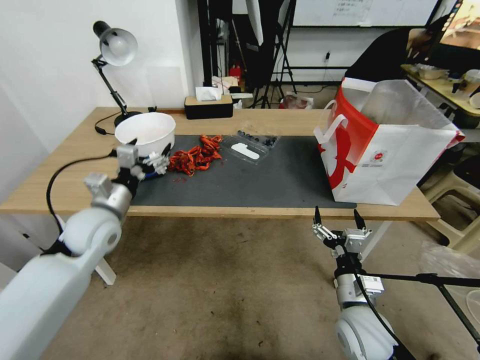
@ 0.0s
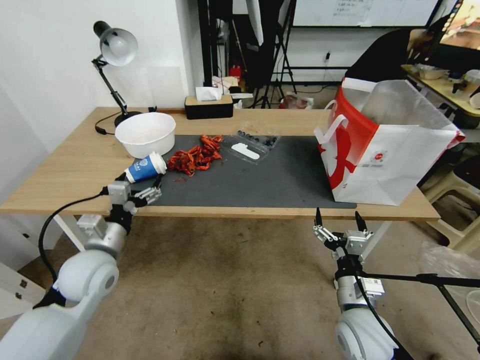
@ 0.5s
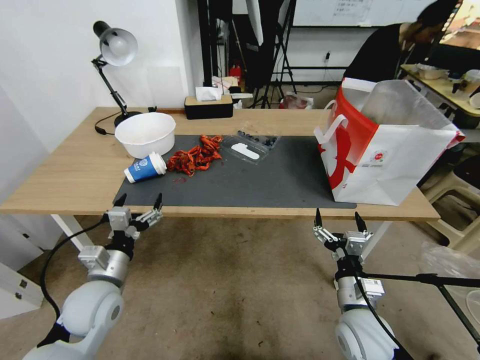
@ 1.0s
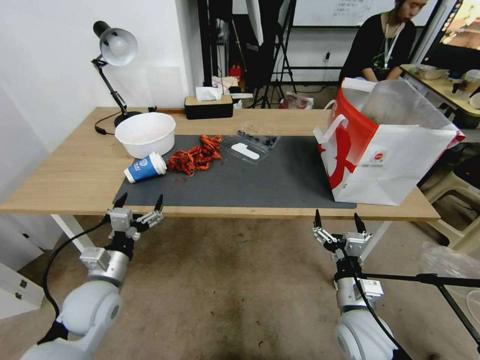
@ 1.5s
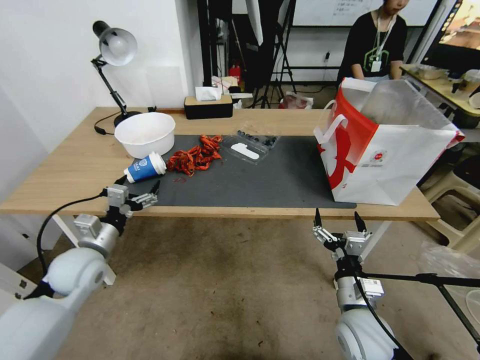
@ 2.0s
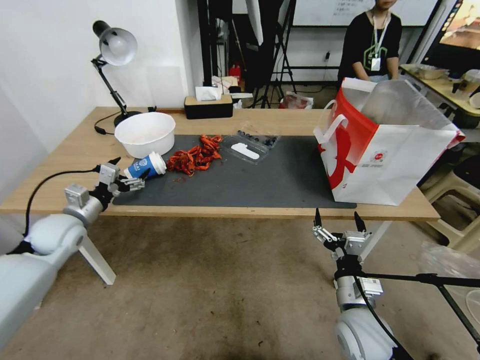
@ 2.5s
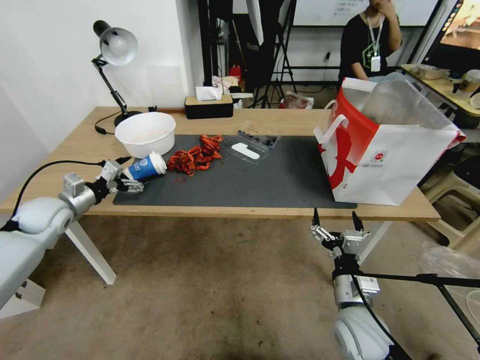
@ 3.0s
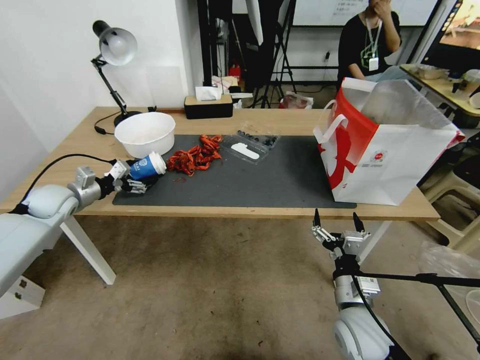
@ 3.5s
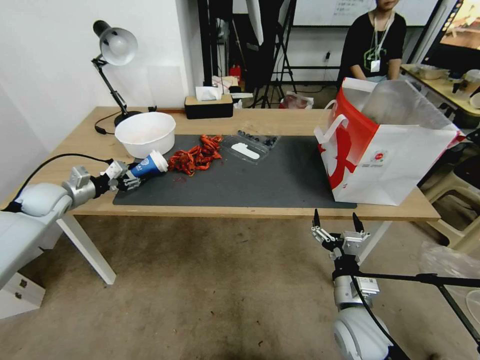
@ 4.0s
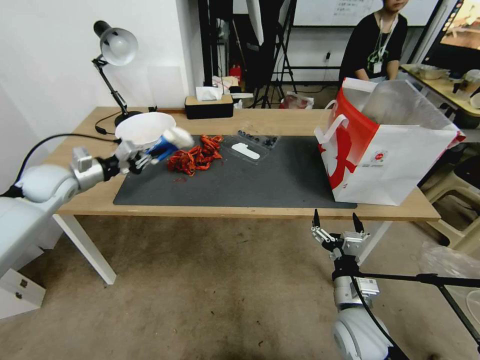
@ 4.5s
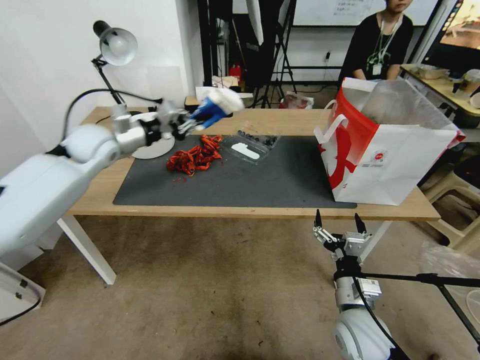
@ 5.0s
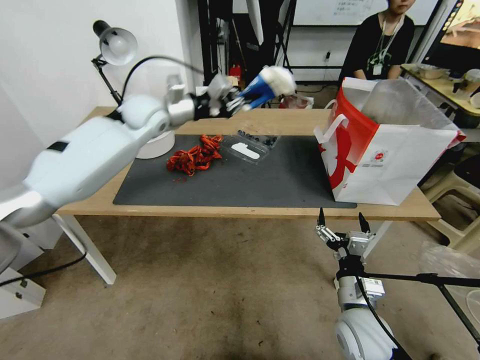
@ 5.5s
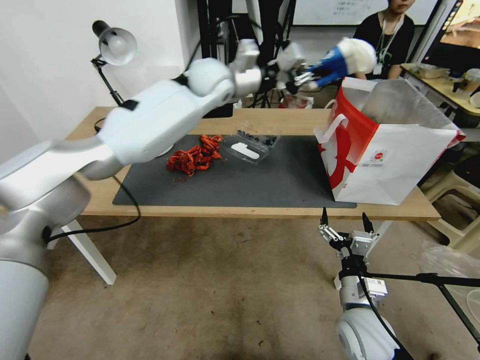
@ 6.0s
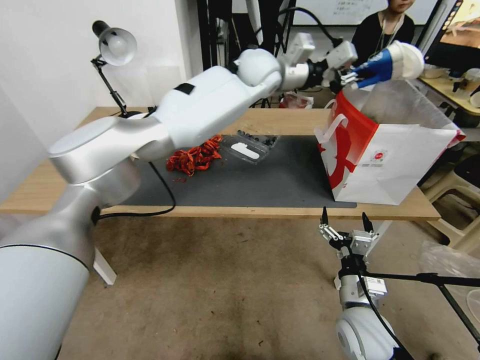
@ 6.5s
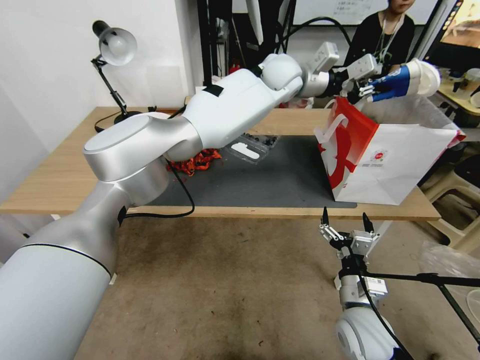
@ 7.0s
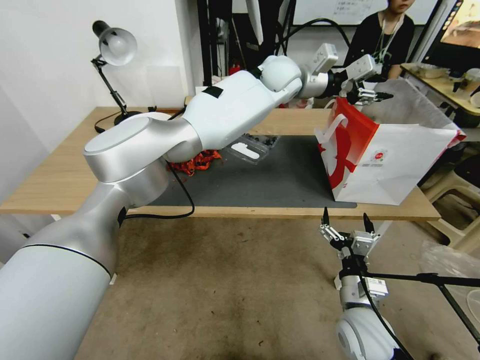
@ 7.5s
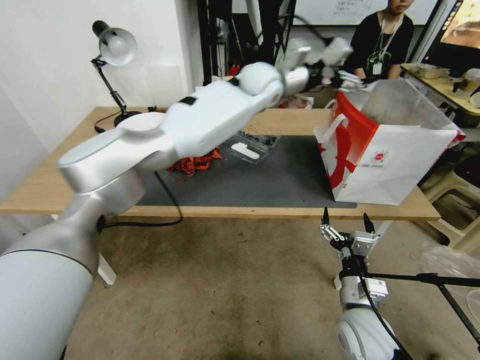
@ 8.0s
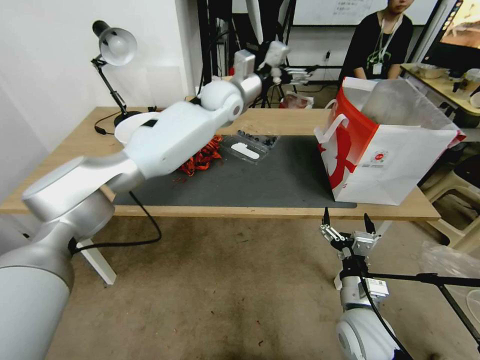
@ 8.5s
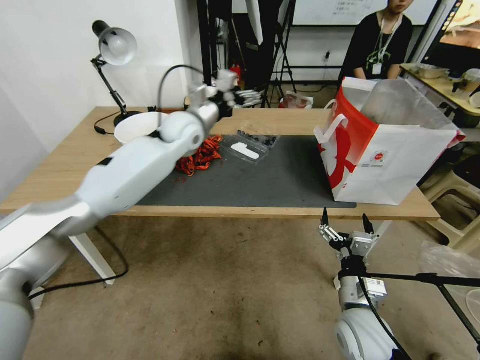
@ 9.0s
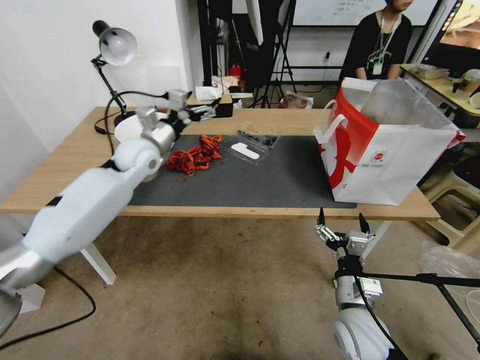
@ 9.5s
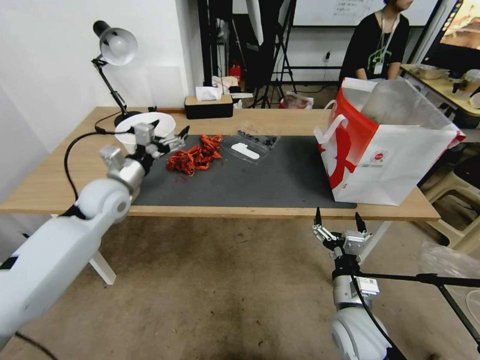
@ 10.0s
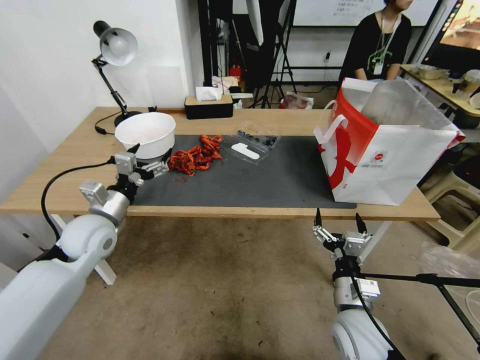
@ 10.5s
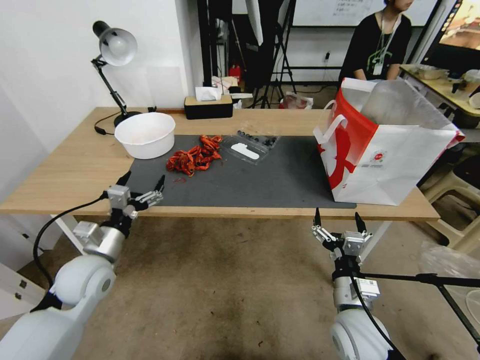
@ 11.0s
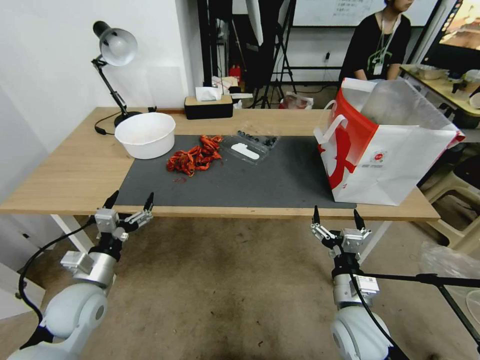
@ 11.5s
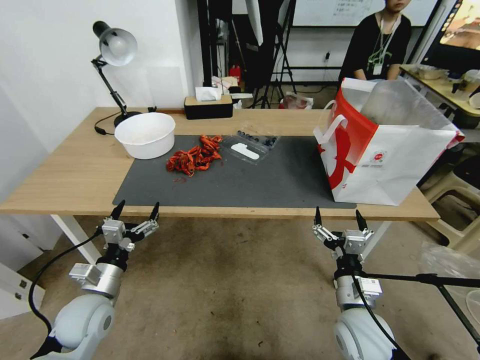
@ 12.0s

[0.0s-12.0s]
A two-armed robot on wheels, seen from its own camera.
0.0s to 2.0s: The left gripper shifts roughly 15 cm backward and downward.
2.0s to 4.0s: The left gripper is displaced forward and to the left by some 20 cm, and closes its fingers.
4.0s to 6.0s: The left gripper shifts roughly 50 cm to the right and upward, and closes up.
6.0s to 8.0s: The left gripper goes roughly 10 cm to the right, and opens up.
8.0s to 10.0s: The left gripper is displaced to the left, backward and downward by about 40 cm.
10.0s to 12.0s: The left gripper goes about 25 cm backward and downward.

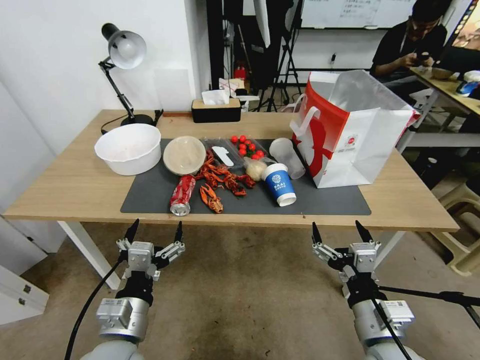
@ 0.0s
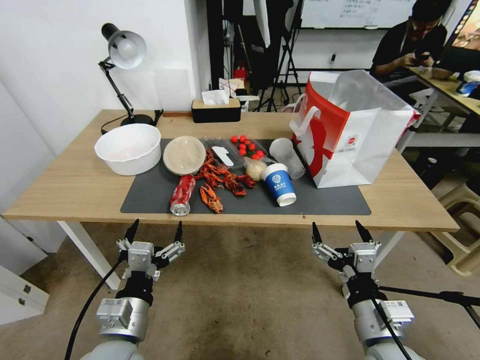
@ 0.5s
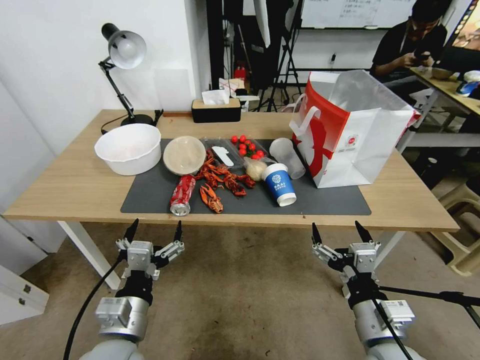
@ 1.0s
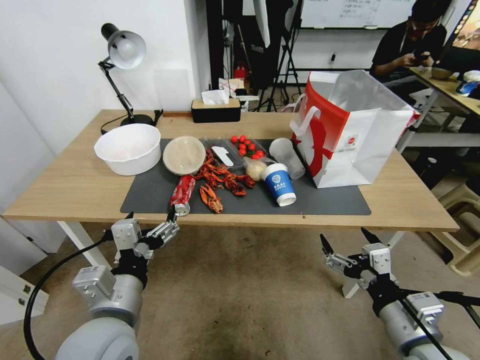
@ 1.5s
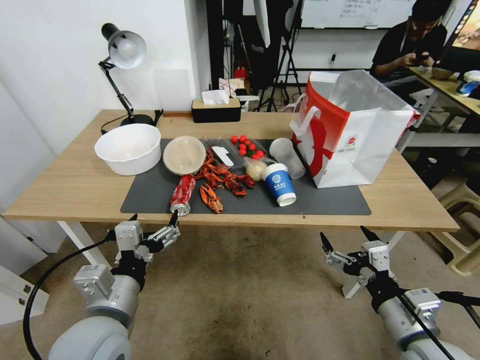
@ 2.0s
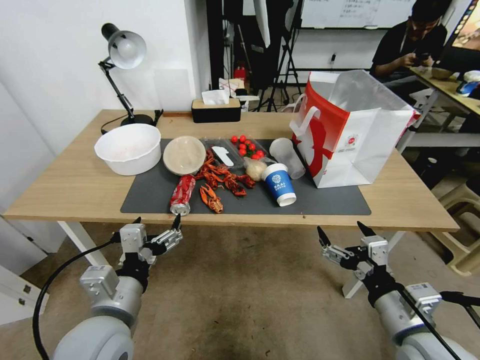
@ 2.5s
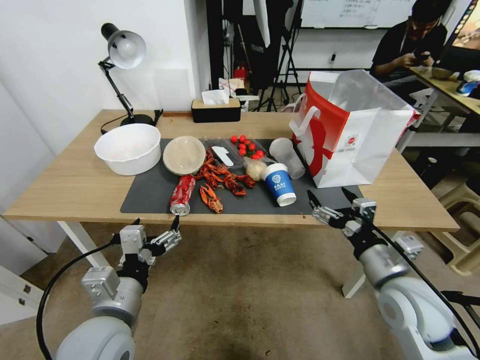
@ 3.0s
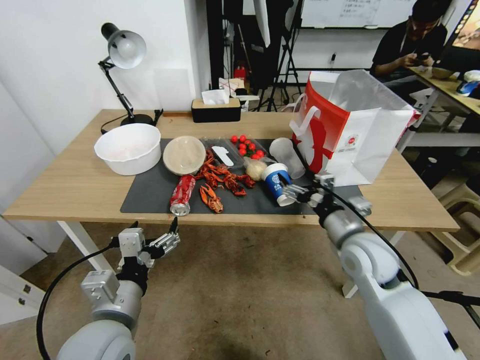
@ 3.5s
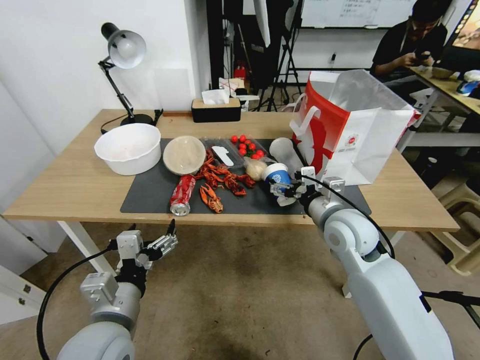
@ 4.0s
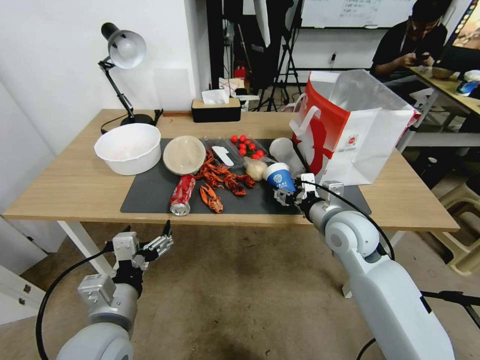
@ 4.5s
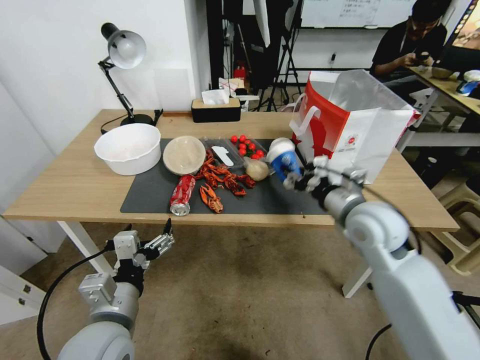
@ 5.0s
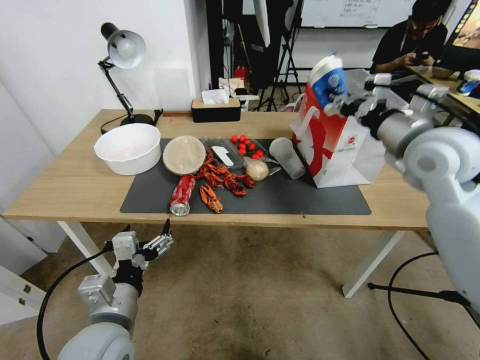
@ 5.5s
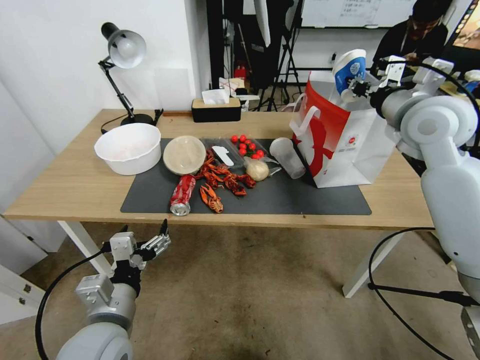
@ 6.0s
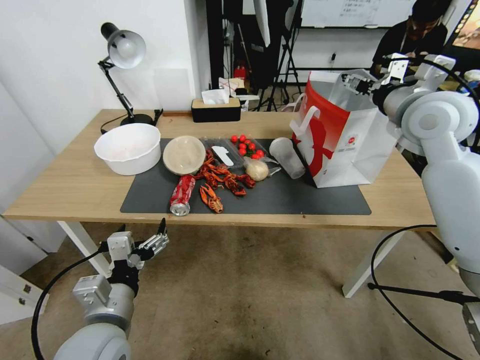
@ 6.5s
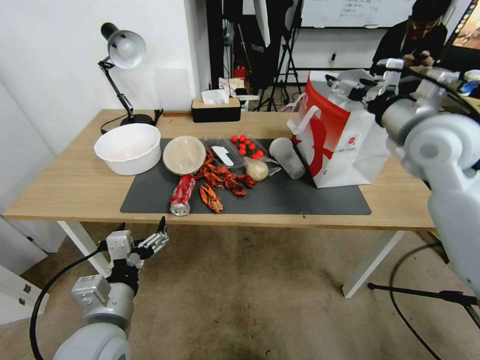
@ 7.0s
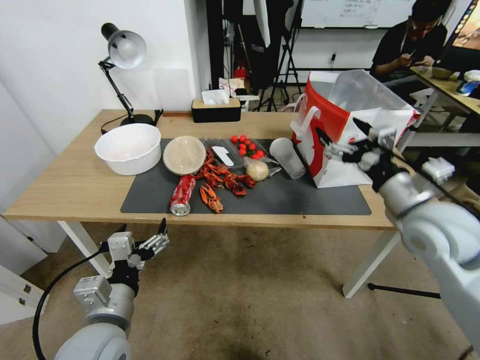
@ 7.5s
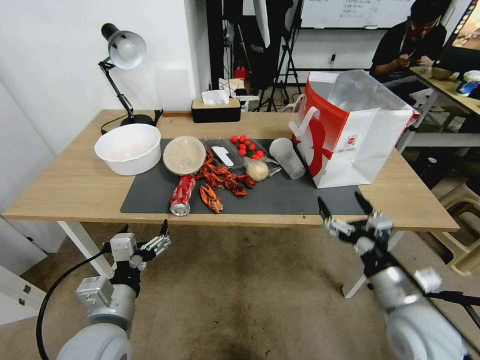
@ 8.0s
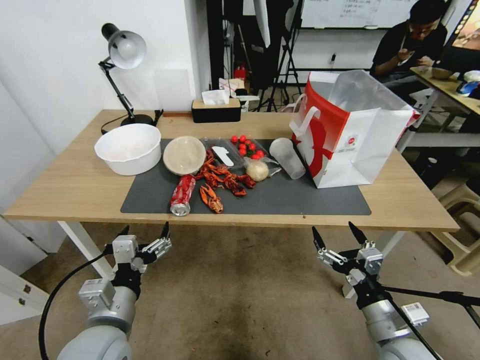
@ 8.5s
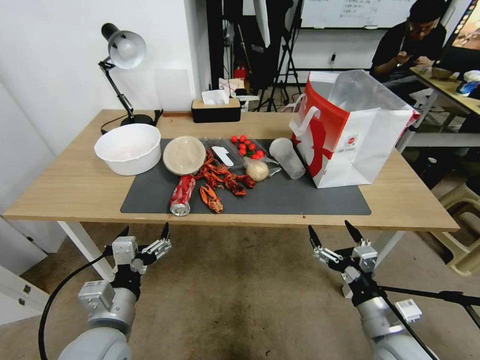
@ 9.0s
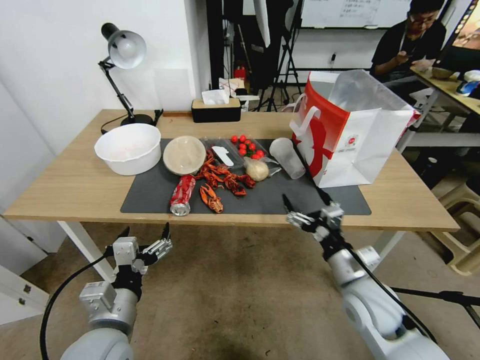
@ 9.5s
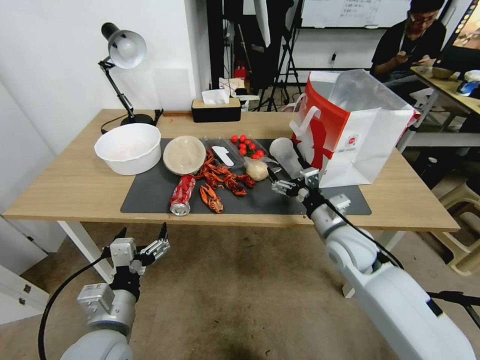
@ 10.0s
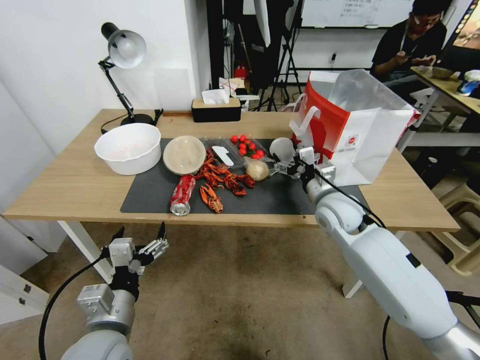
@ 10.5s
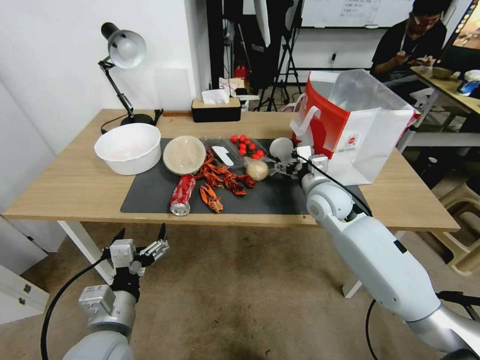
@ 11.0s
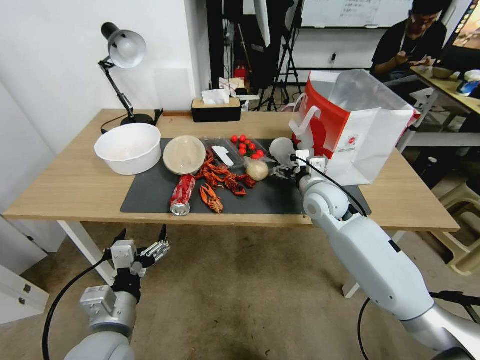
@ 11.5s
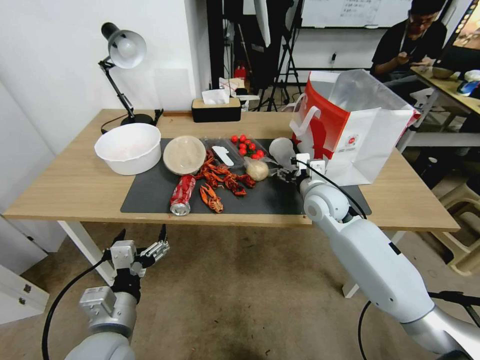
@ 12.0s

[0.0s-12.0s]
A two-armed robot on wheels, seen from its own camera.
2.0s to 4.0s: The right gripper travels forward by about 20 cm.
4.0s to 6.0s: The right gripper moves upward and to the right, about 20 cm, and closes.
6.0s to 8.0s: The right gripper shifts approximately 30 cm downward and backward, and opens up.
8.0s to 10.0s: The right gripper shifts approximately 15 cm forward and to the left.
10.0s to 12.0s: The right gripper travels forward by approximately 10 cm.

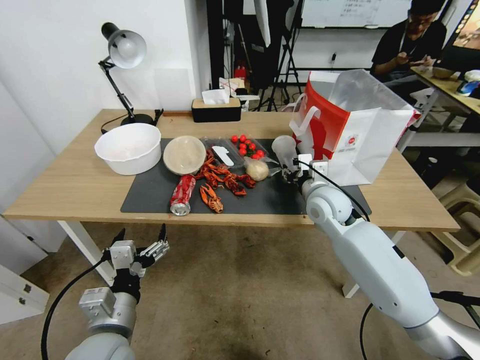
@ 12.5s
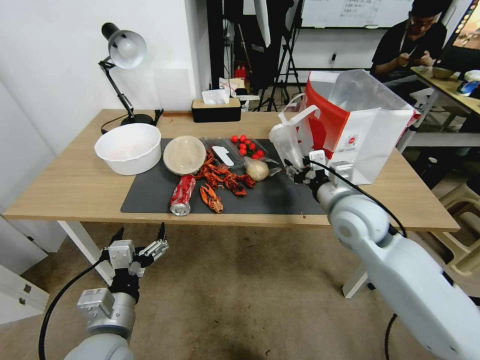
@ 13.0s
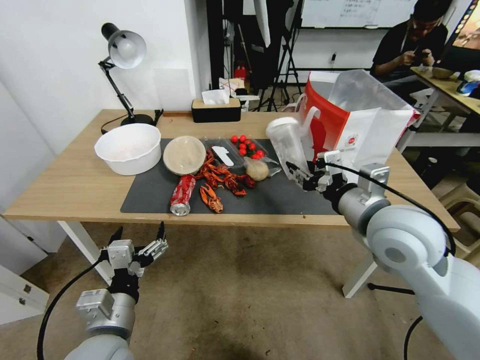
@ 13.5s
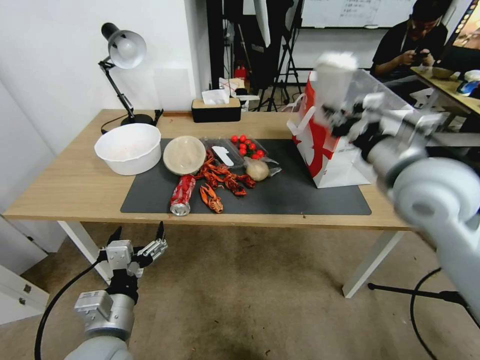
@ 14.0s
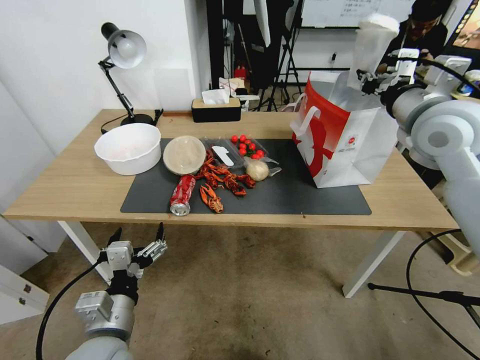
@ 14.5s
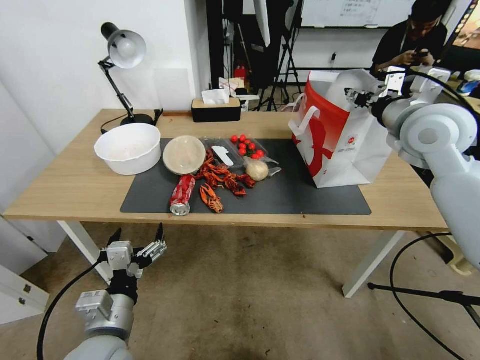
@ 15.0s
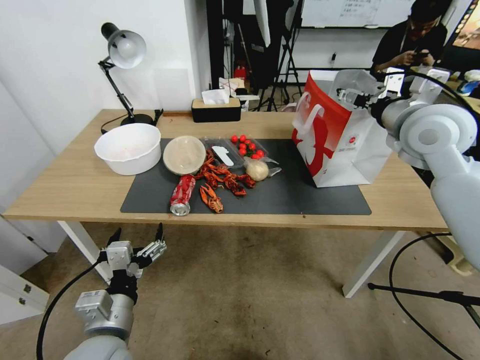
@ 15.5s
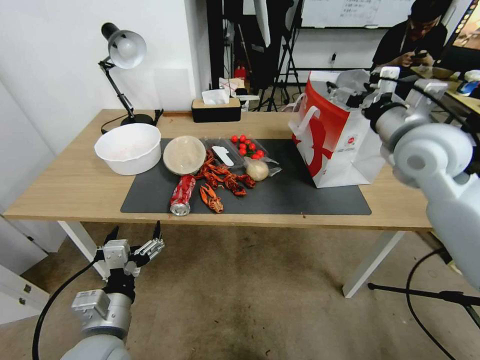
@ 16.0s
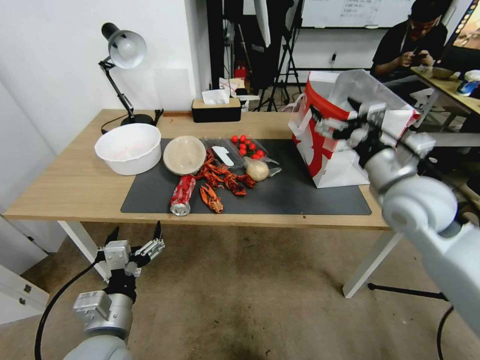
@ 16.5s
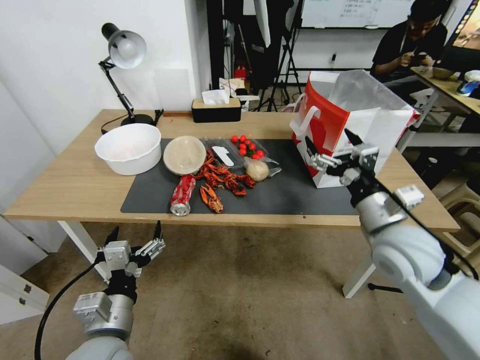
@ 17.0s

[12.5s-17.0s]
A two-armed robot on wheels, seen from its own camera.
12.5s to 14.5s: The right gripper moves upward and to the right, about 25 cm, and closes up.
14.5s to 17.0s: The right gripper goes about 20 cm downward and backward, and opens up.
